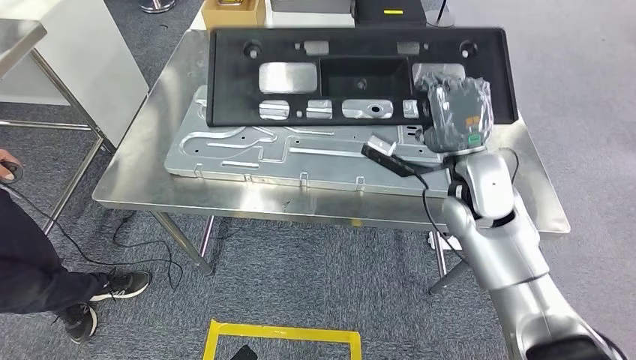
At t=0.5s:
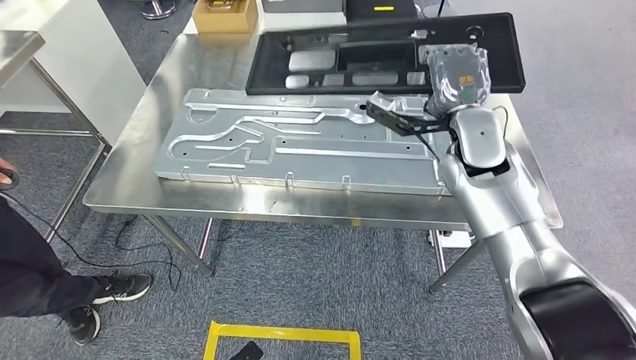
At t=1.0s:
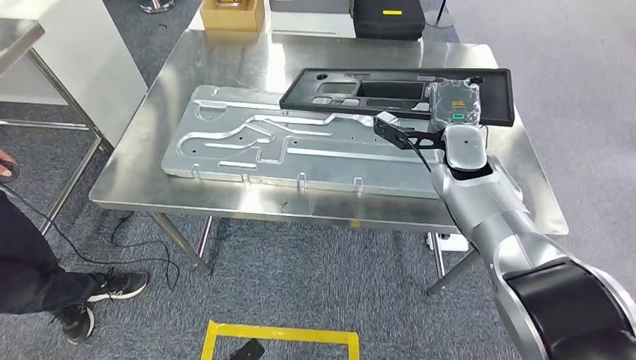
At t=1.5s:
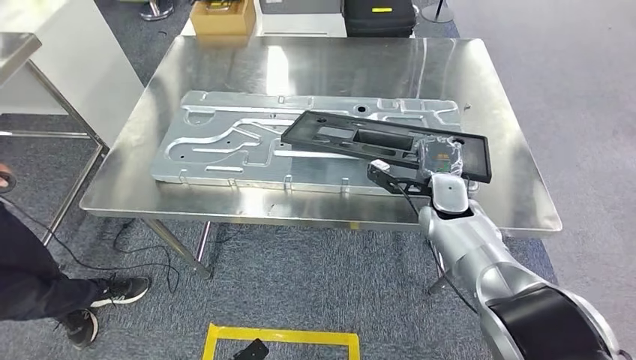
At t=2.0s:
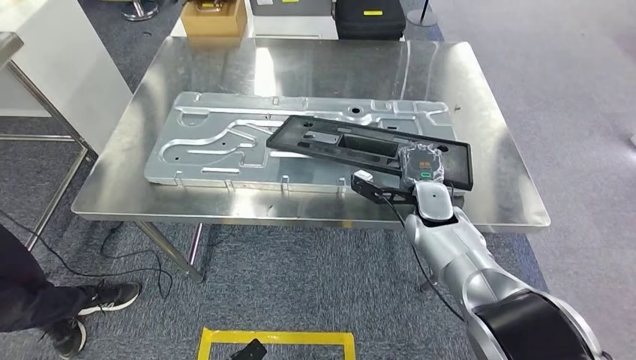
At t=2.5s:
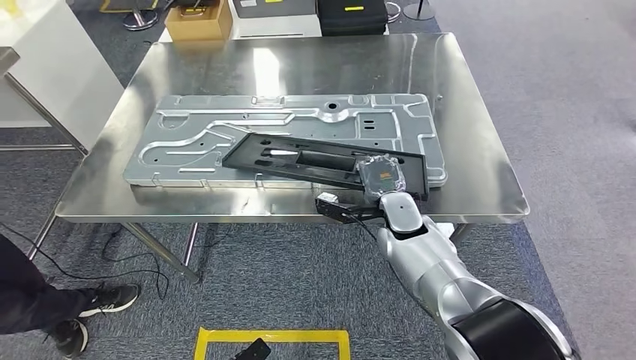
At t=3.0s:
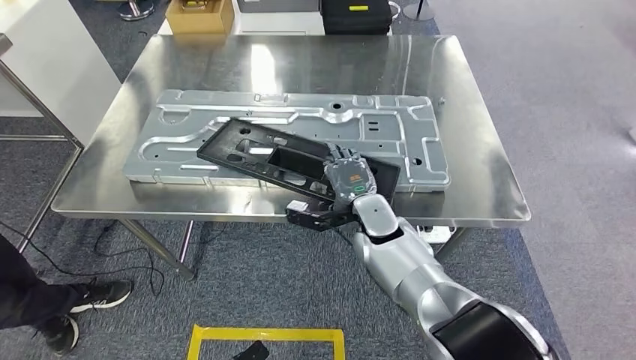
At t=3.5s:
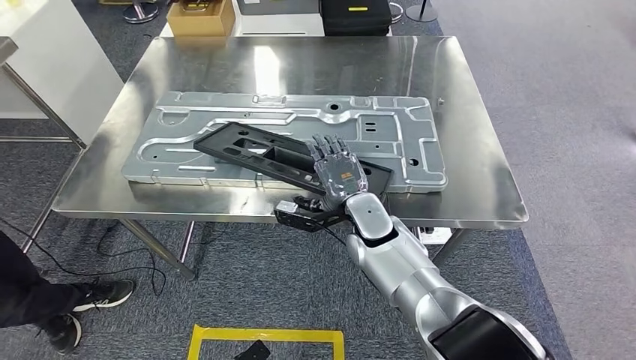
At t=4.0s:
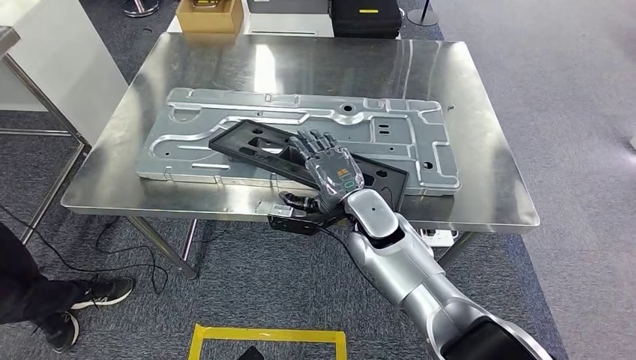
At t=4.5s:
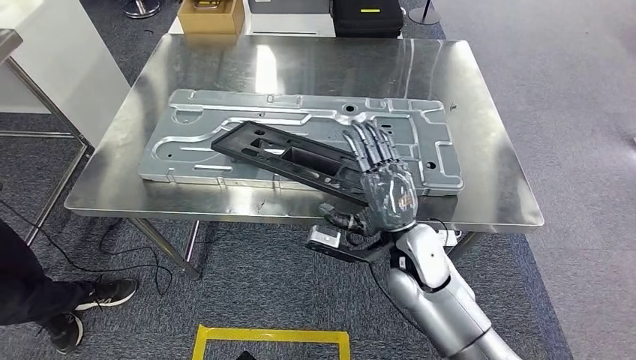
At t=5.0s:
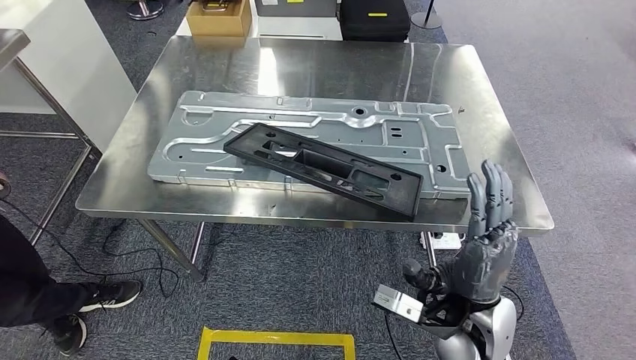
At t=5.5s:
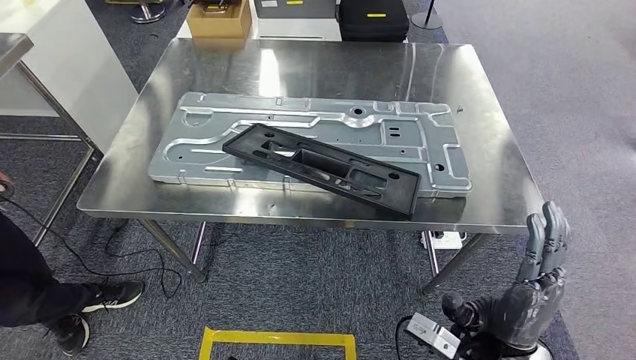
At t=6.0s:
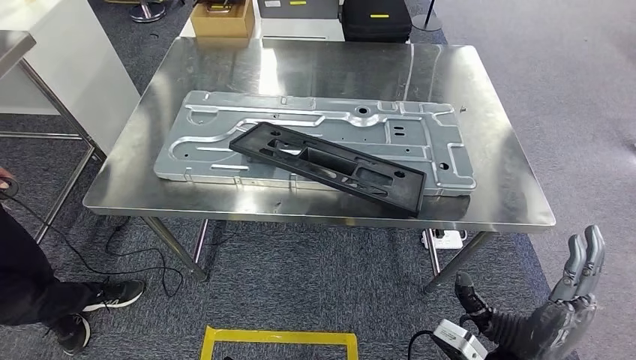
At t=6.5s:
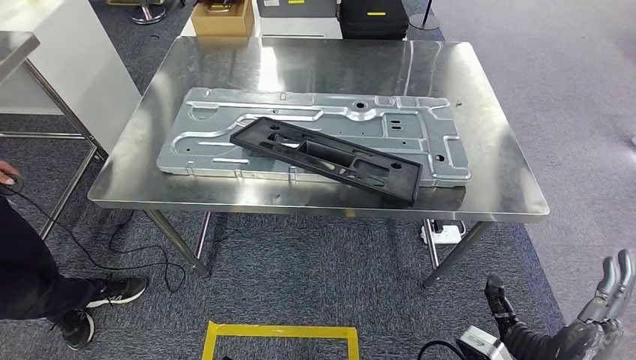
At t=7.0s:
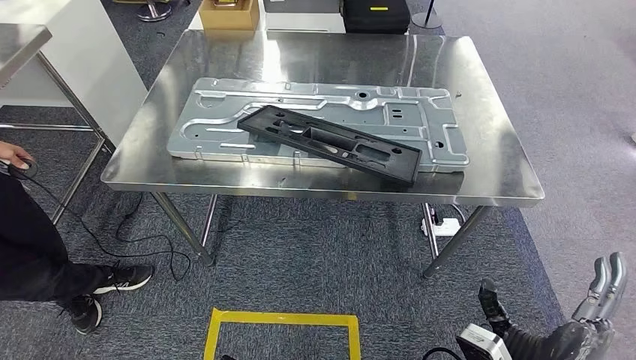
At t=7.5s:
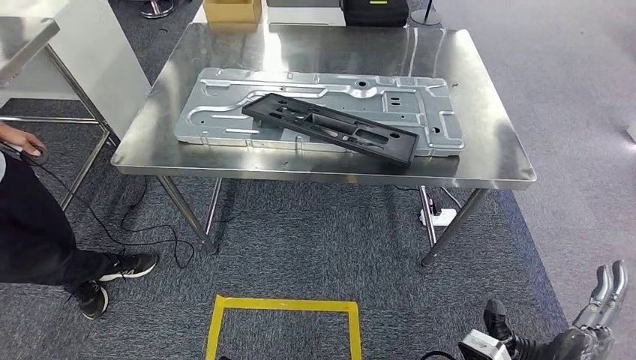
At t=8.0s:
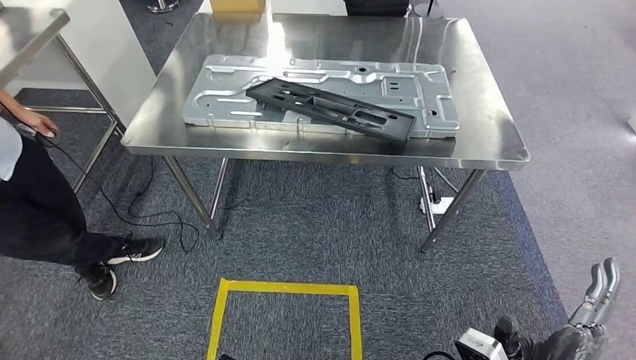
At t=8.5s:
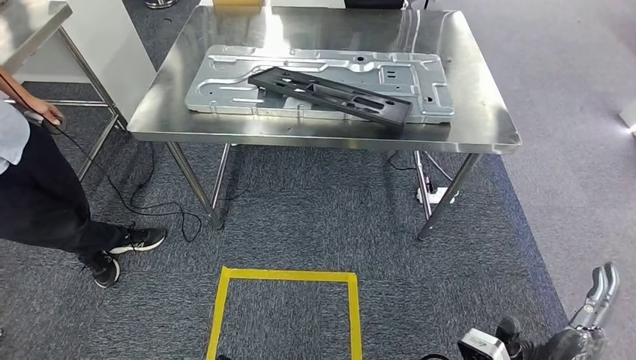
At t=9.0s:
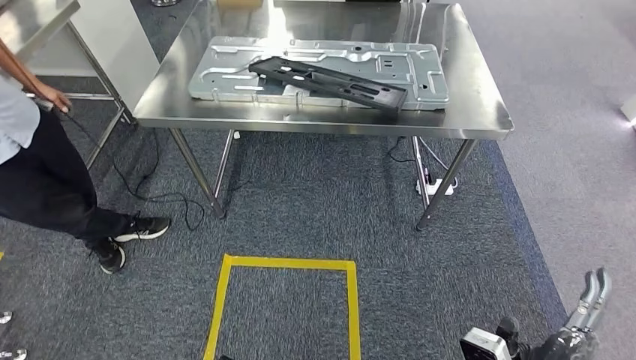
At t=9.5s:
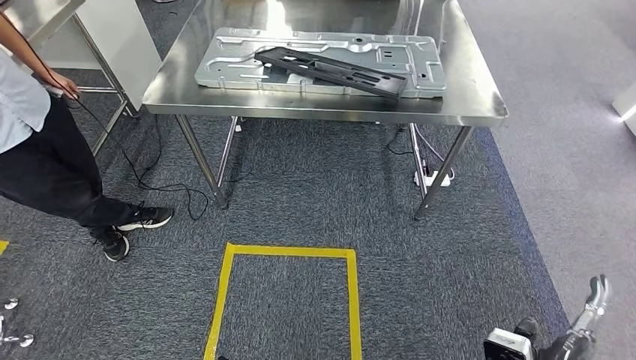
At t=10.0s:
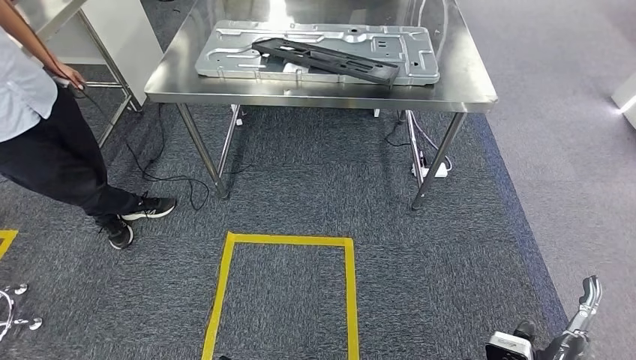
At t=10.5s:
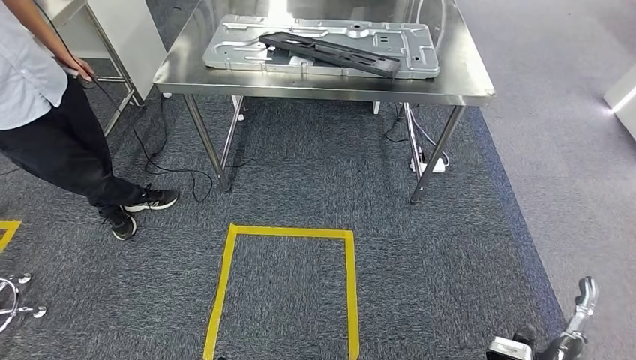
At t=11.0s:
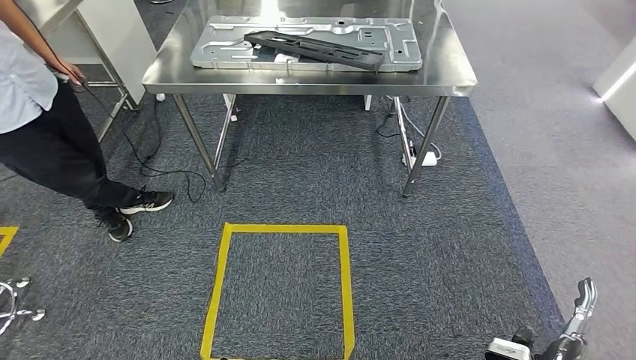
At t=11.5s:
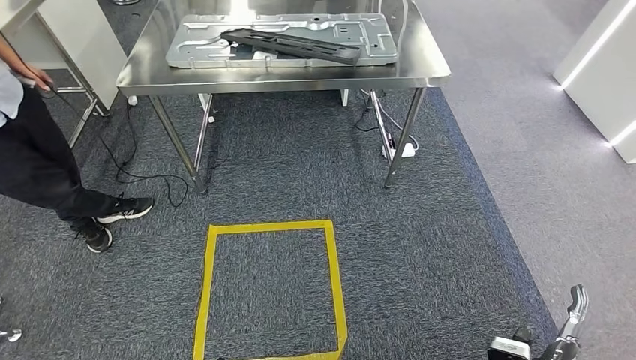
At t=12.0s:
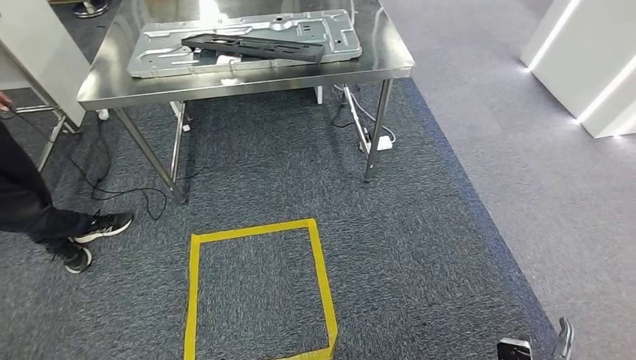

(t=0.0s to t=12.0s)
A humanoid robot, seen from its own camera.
Step, t=0.0s - t=6.0s: Insert the large material into the corresponding slot on the workbench.

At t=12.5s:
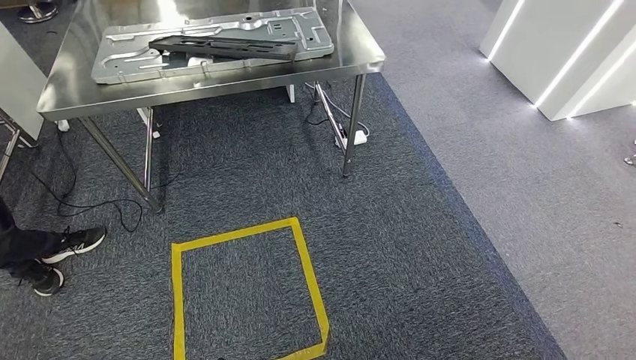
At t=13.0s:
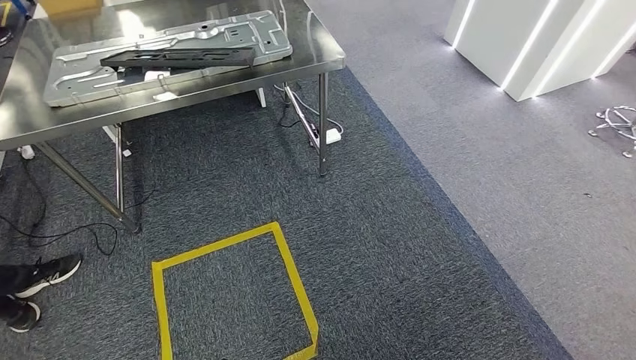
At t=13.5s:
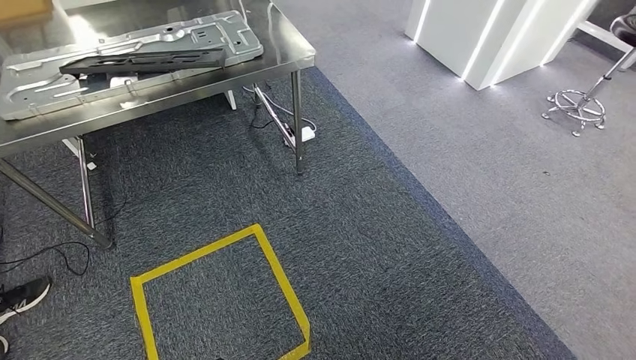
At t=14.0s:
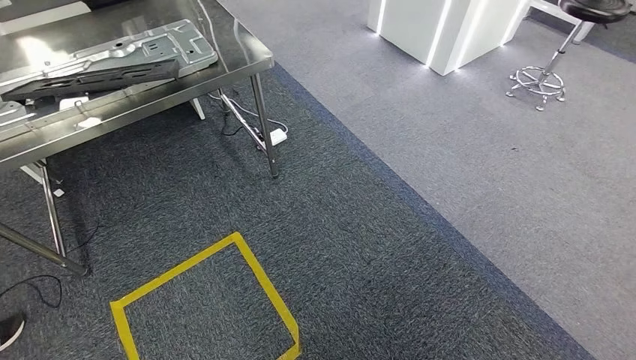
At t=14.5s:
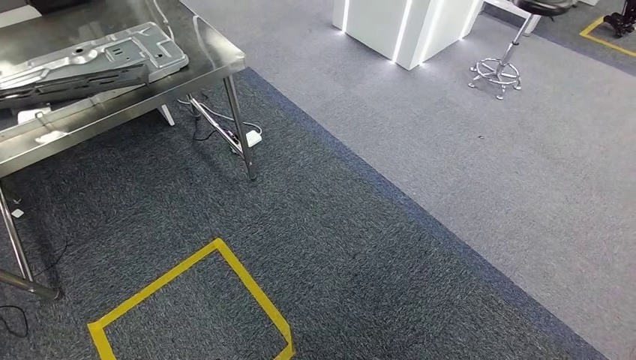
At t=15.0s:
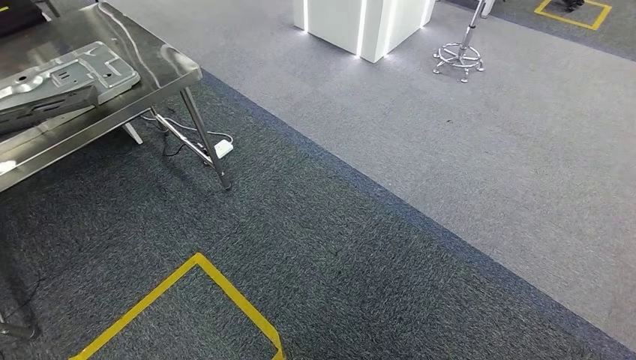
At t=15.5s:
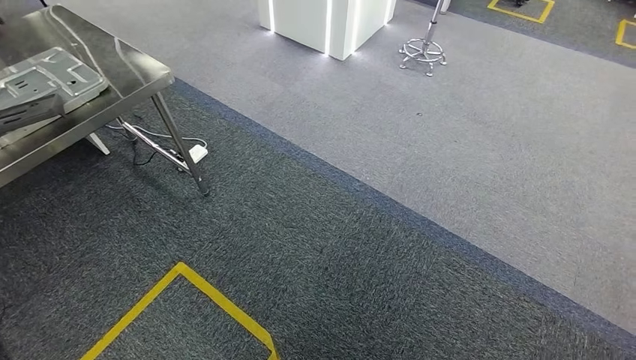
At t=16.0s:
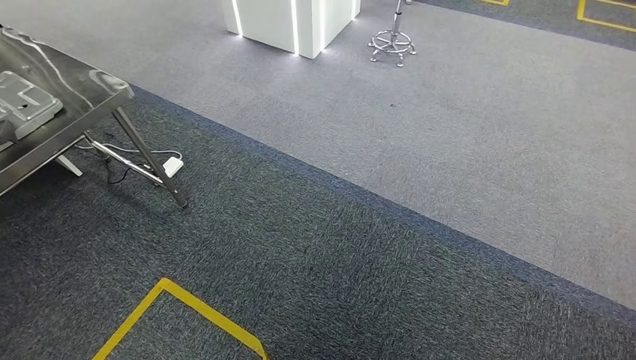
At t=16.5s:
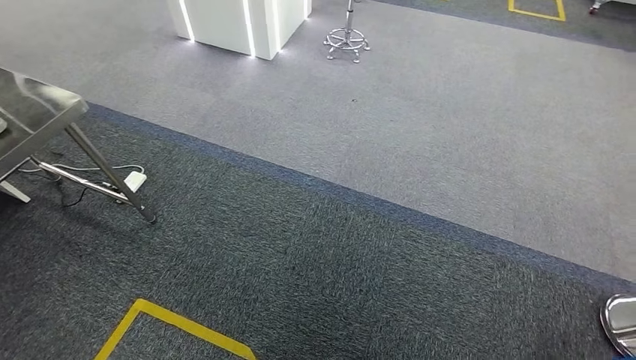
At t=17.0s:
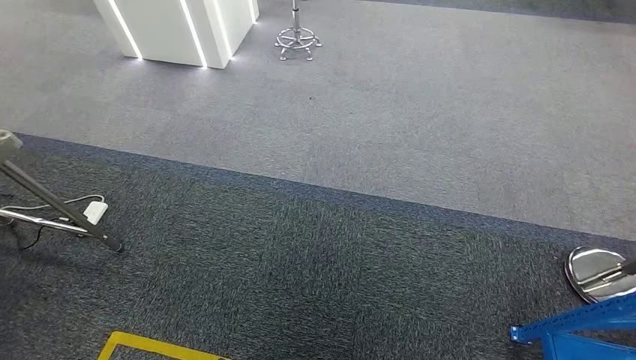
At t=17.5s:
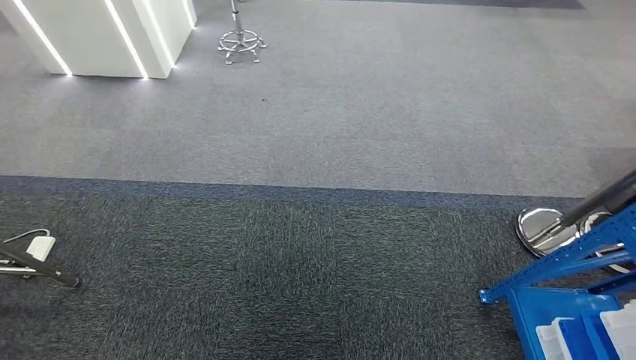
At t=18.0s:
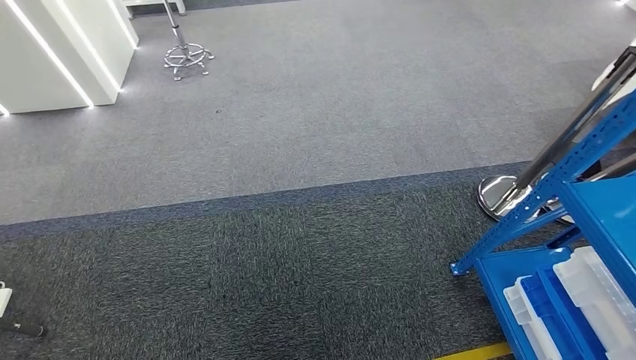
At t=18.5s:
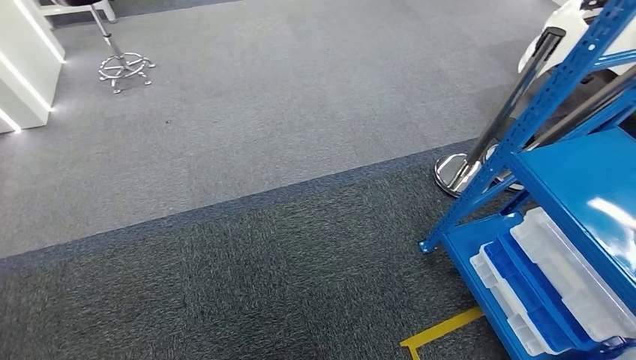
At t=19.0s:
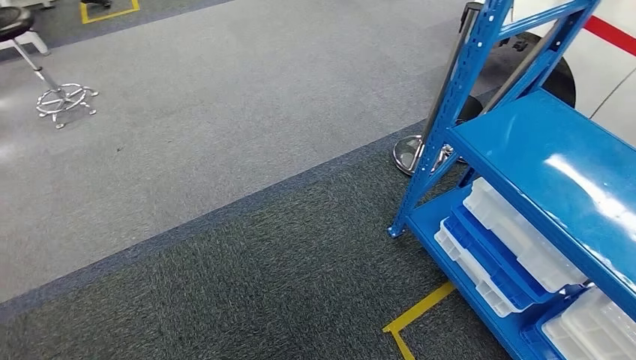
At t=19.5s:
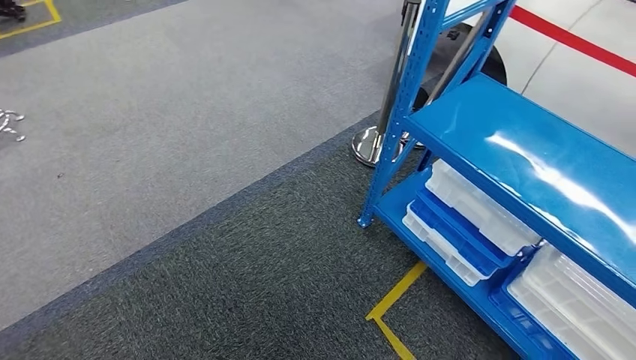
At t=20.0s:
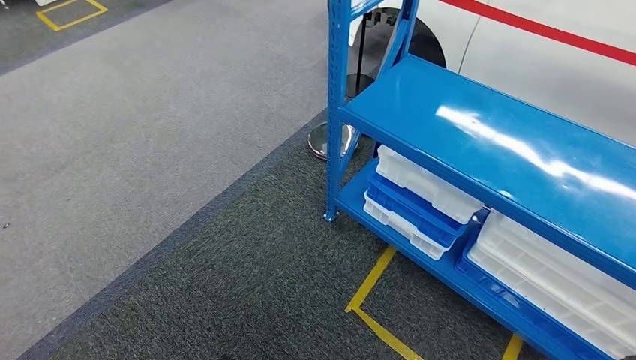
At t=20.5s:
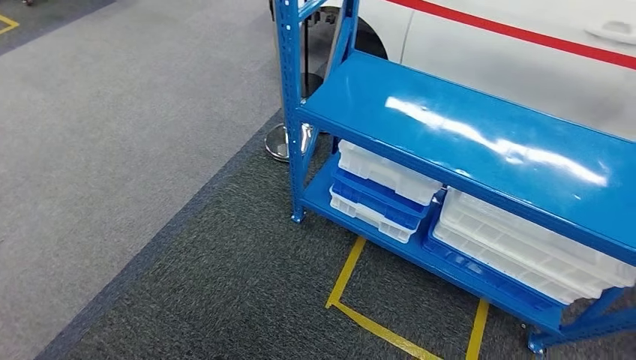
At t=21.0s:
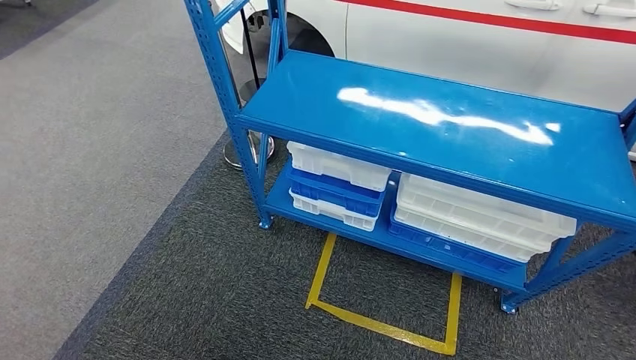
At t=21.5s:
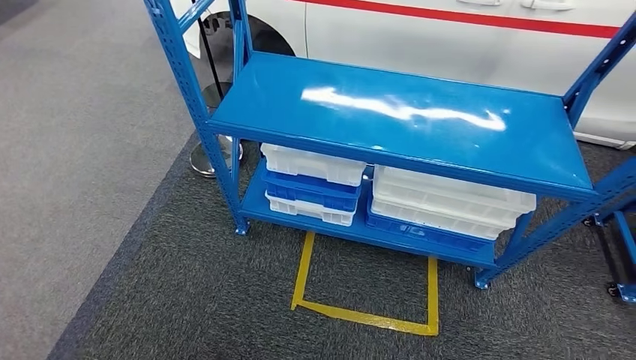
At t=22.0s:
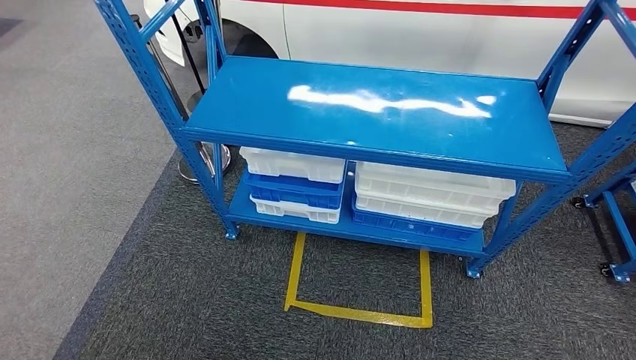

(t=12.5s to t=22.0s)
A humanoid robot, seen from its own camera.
Step, t=12.5s - t=22.0s: Return to the initial position at the shelf.
